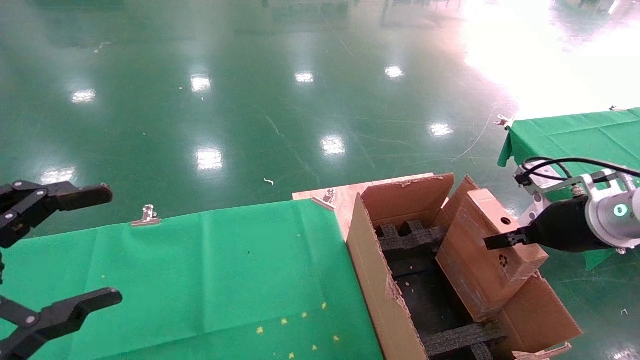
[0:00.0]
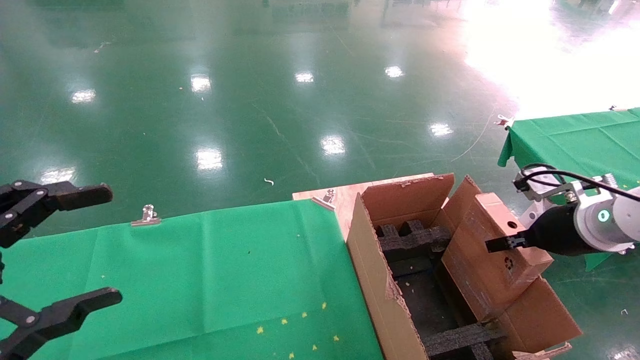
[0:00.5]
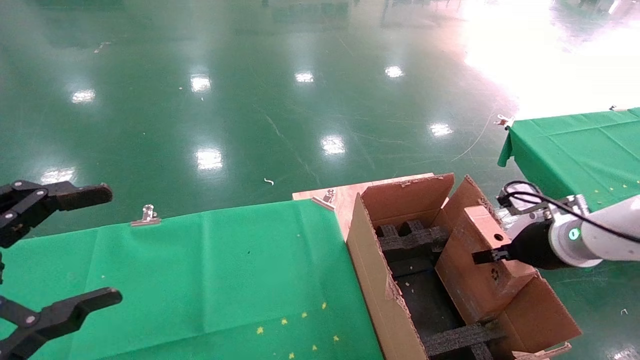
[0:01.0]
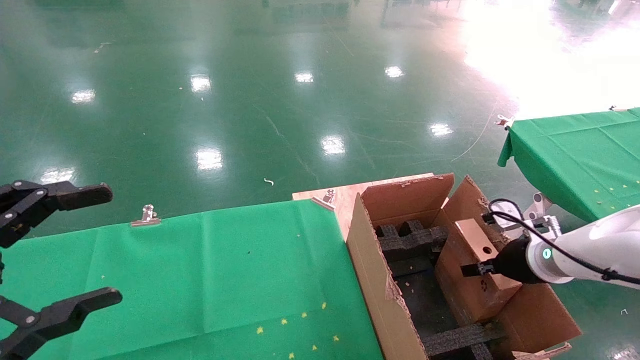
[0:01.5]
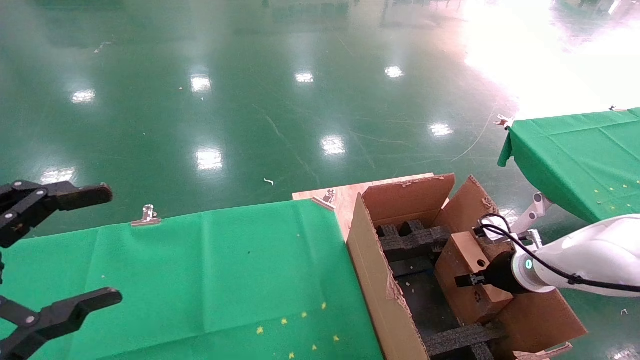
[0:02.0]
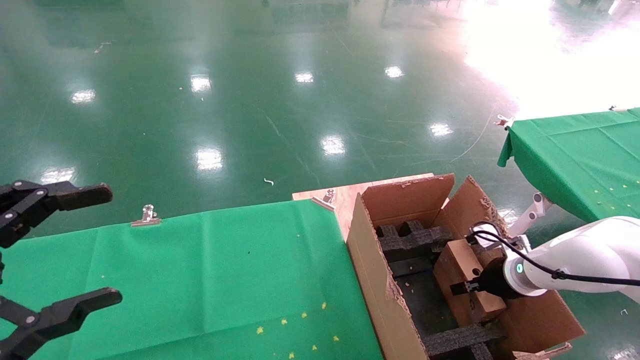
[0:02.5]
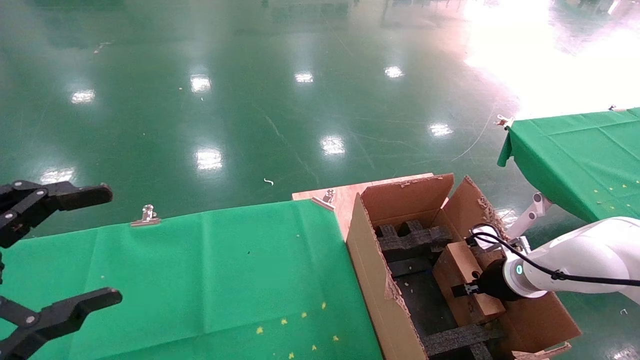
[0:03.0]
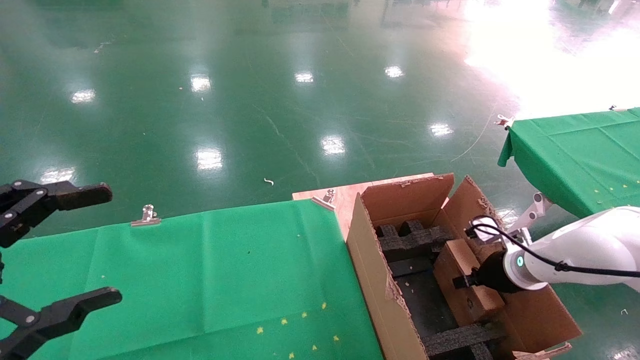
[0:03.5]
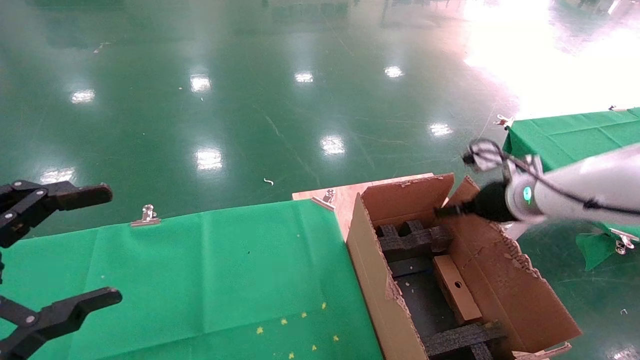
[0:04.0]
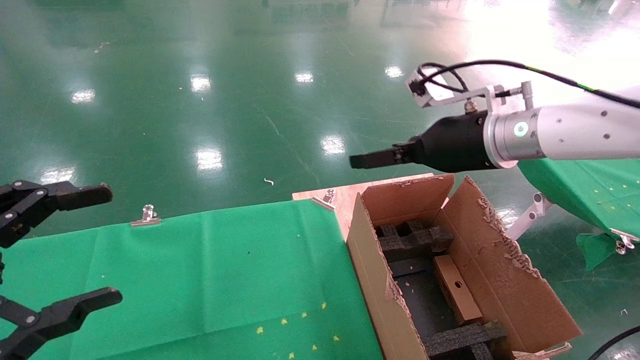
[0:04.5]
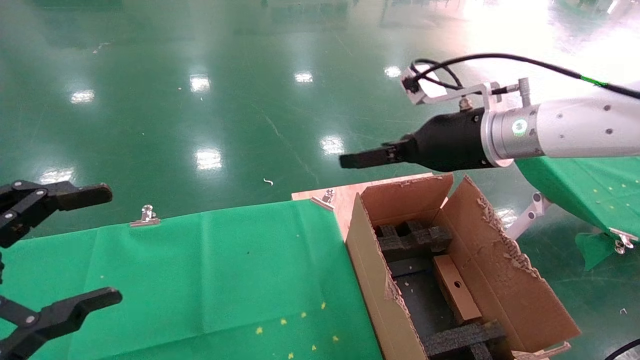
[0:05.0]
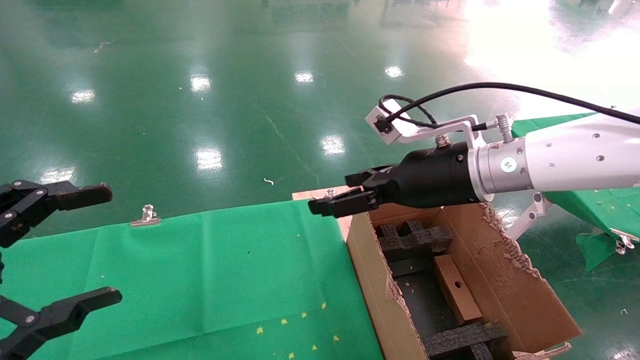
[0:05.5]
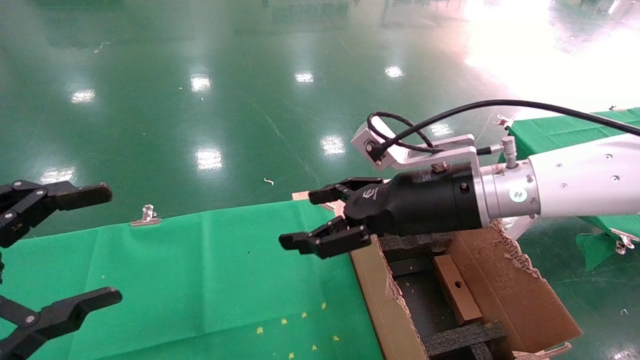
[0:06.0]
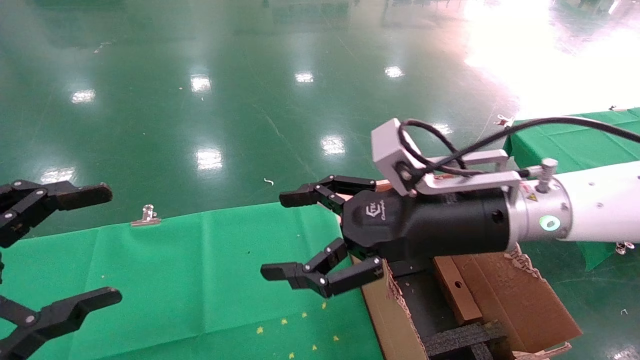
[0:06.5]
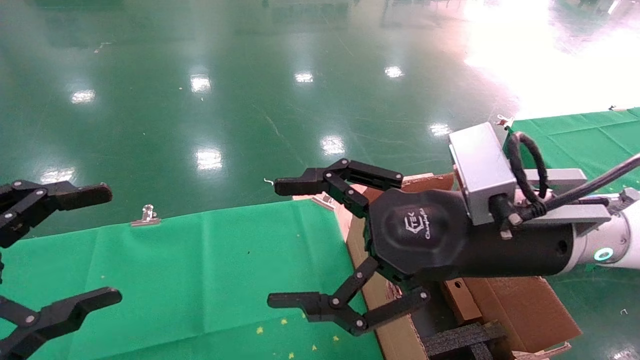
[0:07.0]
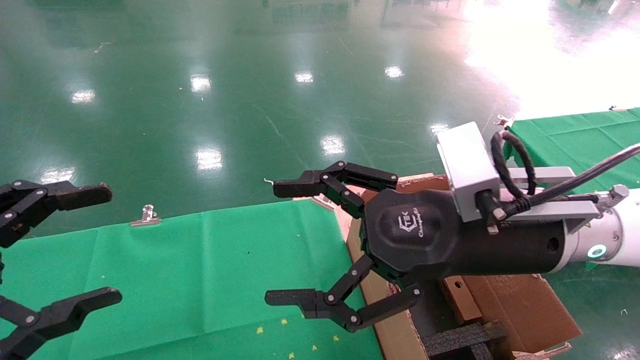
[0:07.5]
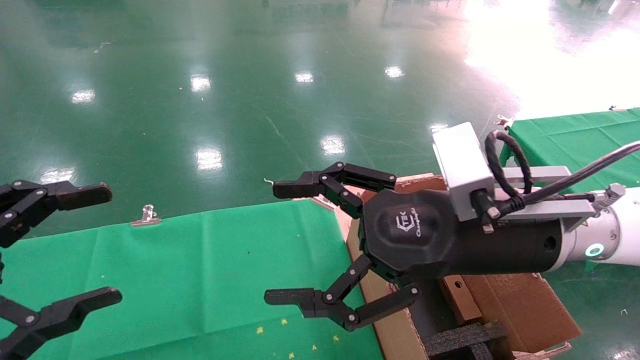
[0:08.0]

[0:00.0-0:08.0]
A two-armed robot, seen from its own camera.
Task of the whole recording: using a robotic arm to pick up a cardboard box and palace it the carton.
Step, 0:00.0 to 0:03.5: Place the mouse and the power cord paper box into the container.
0:00.0 to 0:02.0: The right gripper travels downward and forward by approximately 15 cm.
0:02.0 to 0:04.0: The right gripper moves upward, roughly 10 cm, and opens its fingers.
0:04.0 to 0:06.0: The right gripper travels to the left, backward and upward by roughly 20 cm.
0:06.0 to 0:08.0: The right gripper goes approximately 5 cm backward.

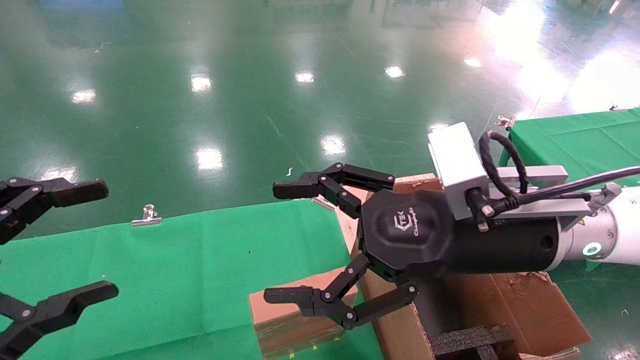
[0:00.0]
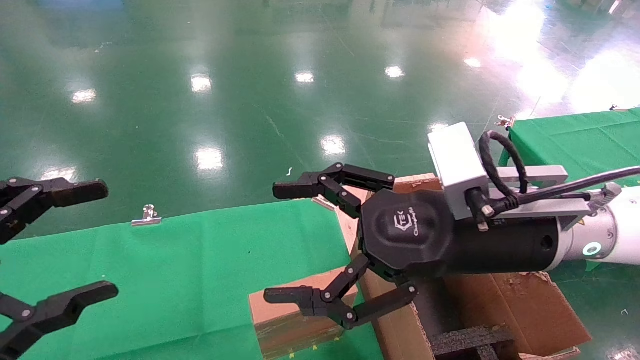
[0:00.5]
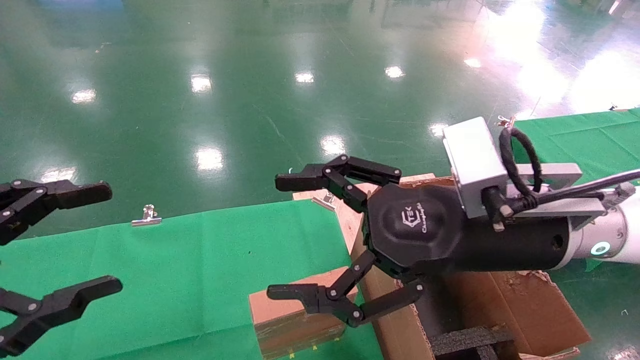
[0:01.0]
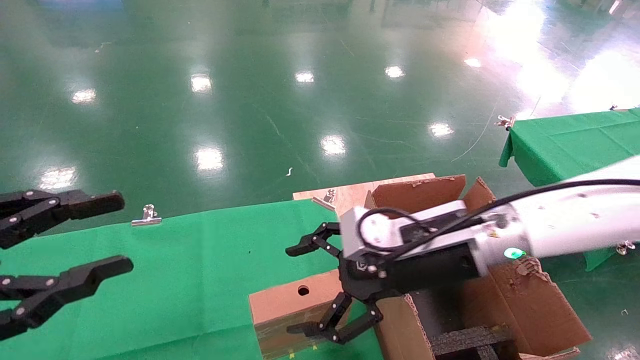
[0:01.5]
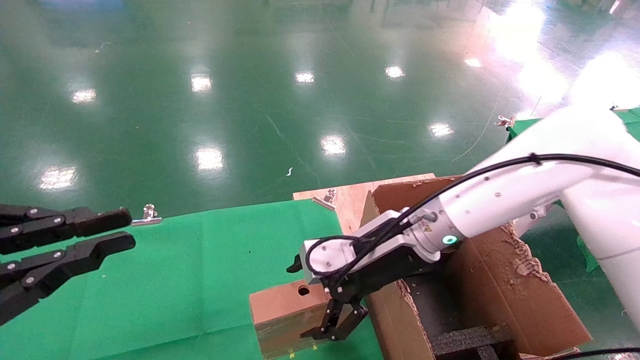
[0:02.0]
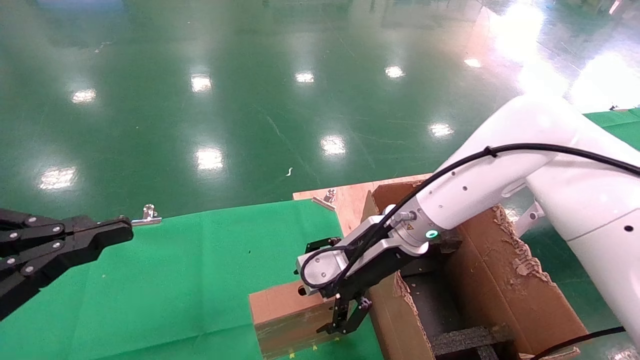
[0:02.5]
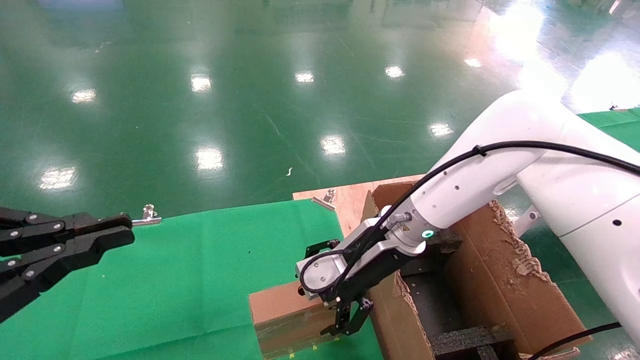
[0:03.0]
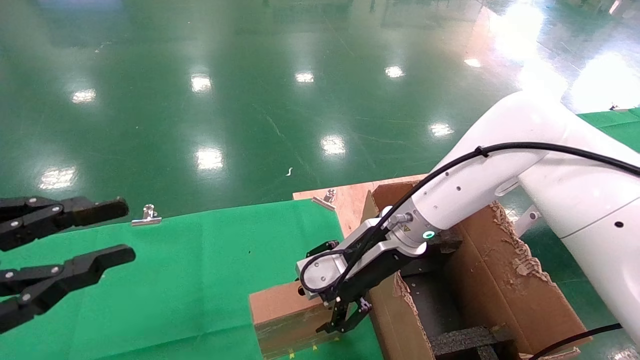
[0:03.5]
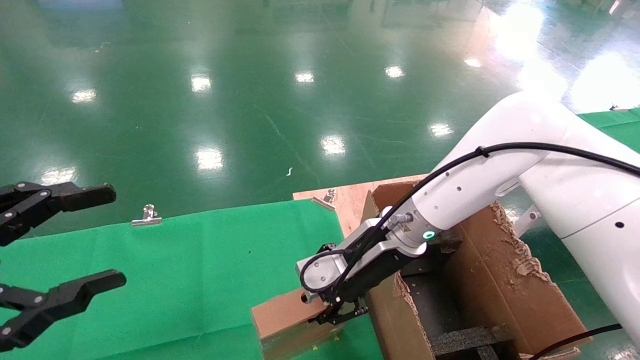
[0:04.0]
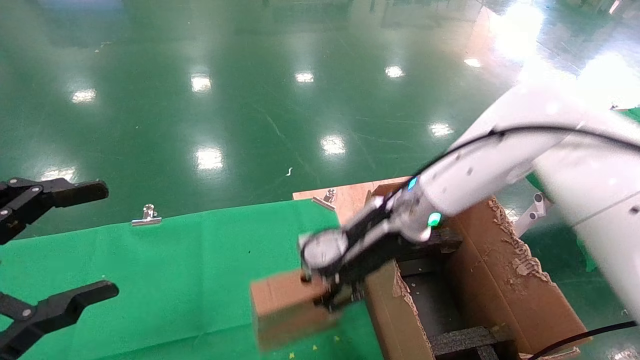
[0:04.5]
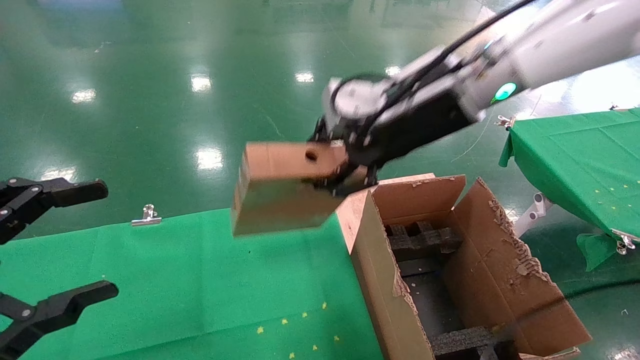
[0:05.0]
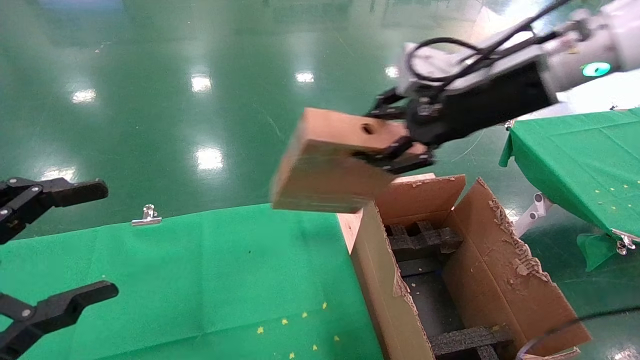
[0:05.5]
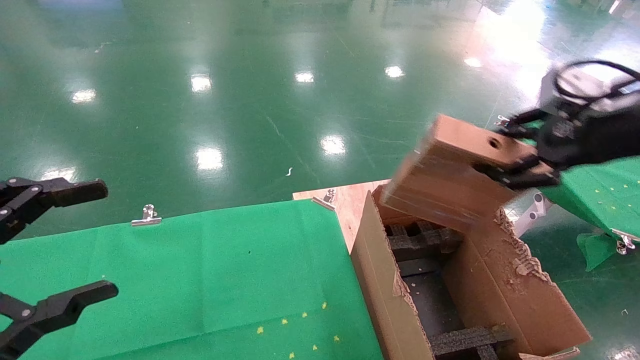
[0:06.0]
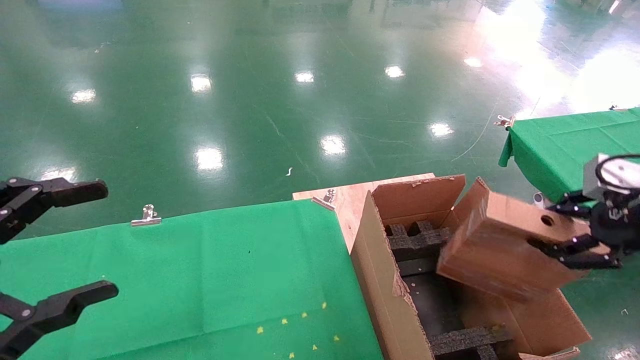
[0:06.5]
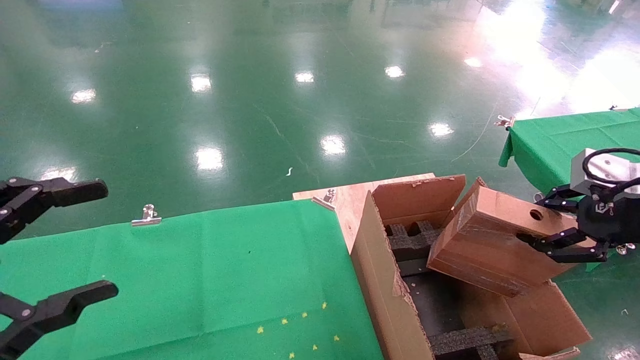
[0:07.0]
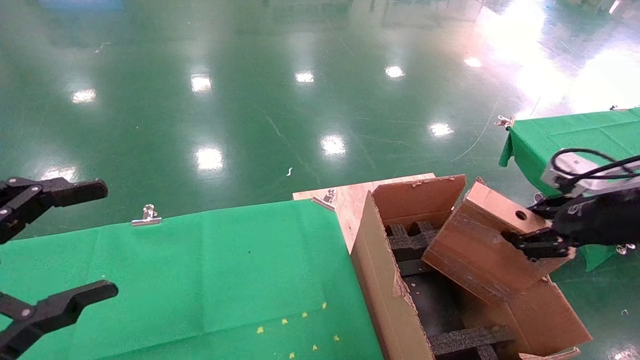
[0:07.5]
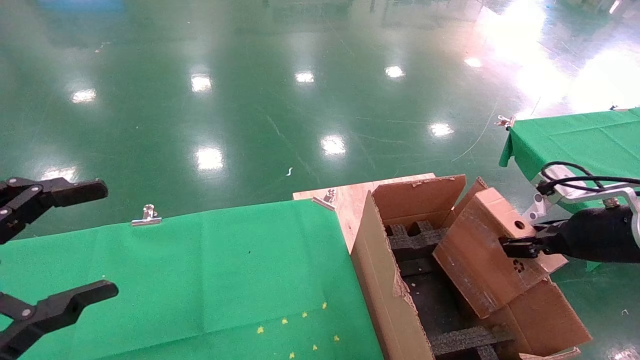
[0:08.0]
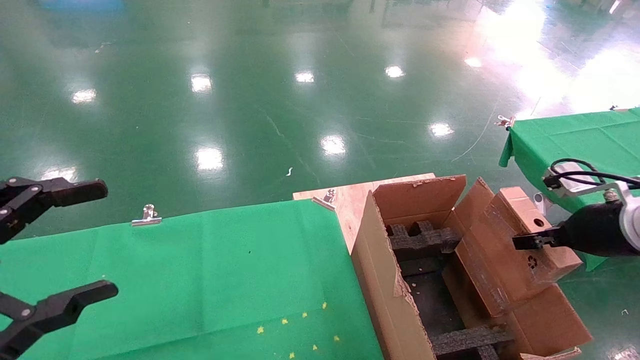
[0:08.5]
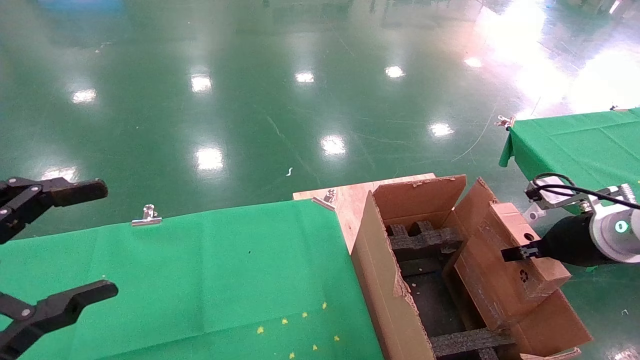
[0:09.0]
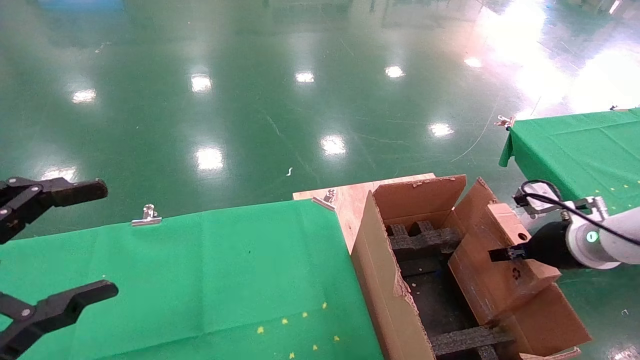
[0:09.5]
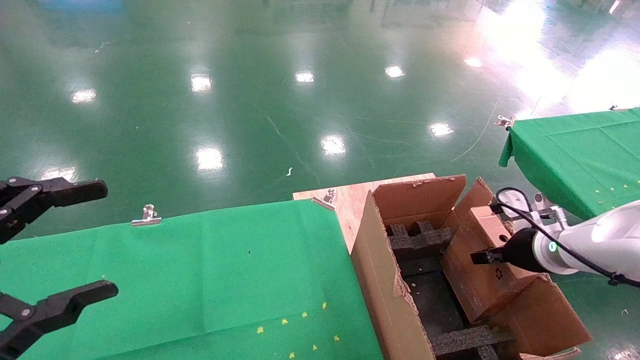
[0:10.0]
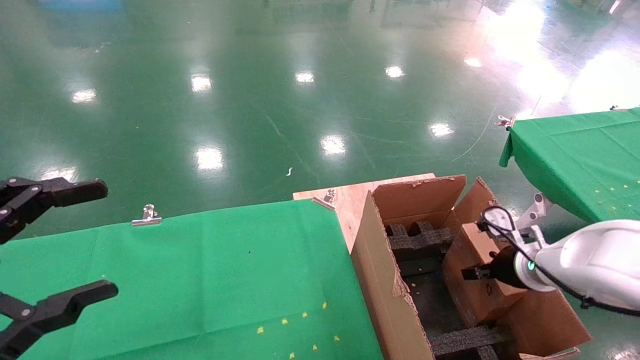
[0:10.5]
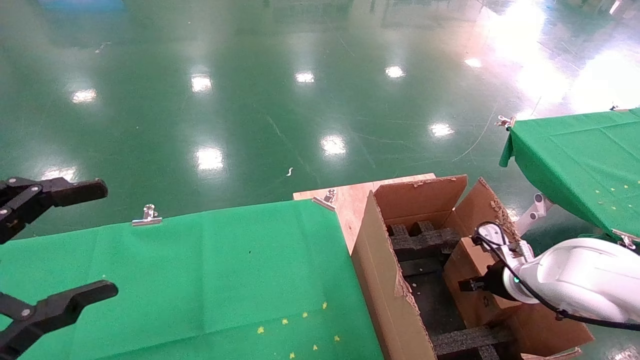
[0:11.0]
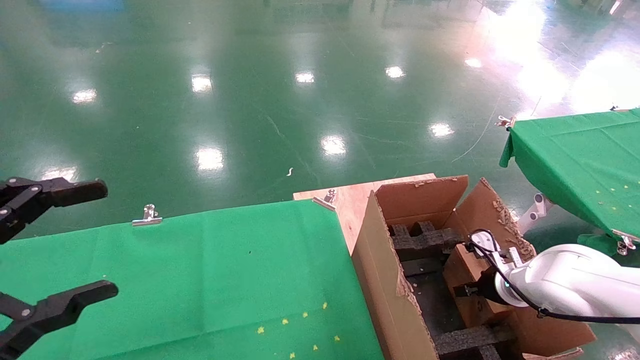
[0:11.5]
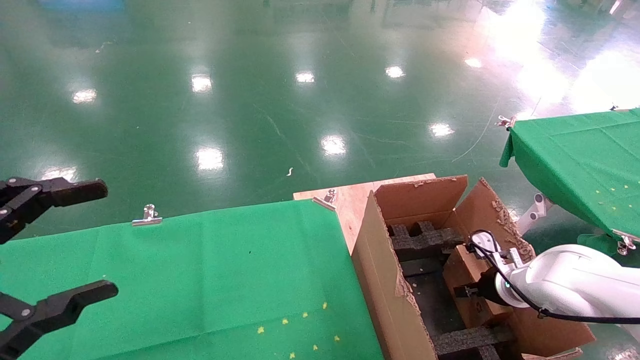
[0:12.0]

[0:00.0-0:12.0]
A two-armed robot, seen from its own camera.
Task of the whole recording: using a robotic arm to pick up a cardboard box and palace it the carton.
Step, 0:01.5 to 0:04.0: Pick up the mouse and the power cord paper box.
0:00.0 to 0:02.0: The left gripper closes its fingers. The right gripper travels forward and downward by roughly 15 cm.
0:02.0 to 0:04.0: The left gripper opens up, while the right gripper closes up.
0:04.0 to 0:06.0: The right gripper travels to the right, upward and backward by roughly 30 cm.
0:06.0 to 0:08.0: The right gripper moves downward, approximately 15 cm.
0:08.0 to 0:10.0: The right gripper is displaced forward and downward by approximately 10 cm.
0:10.0 to 0:12.0: The right gripper moves downward, roughly 10 cm.
